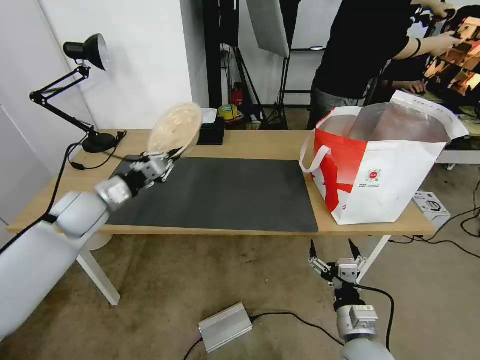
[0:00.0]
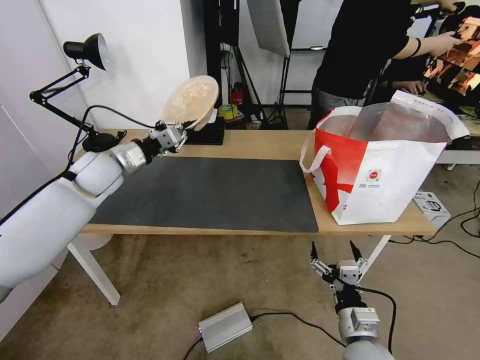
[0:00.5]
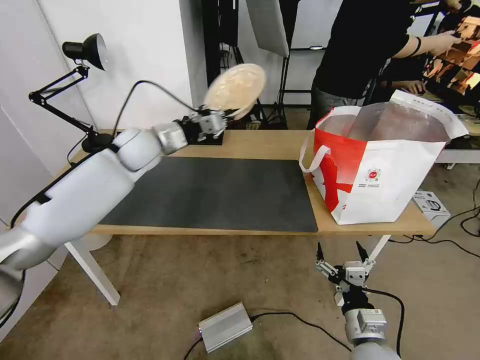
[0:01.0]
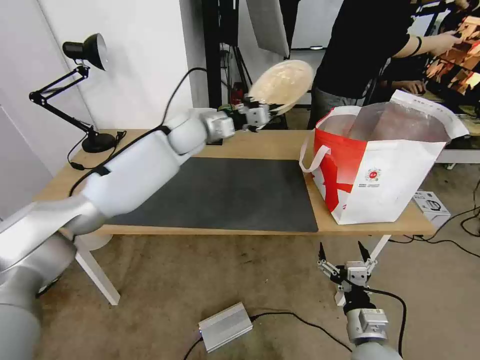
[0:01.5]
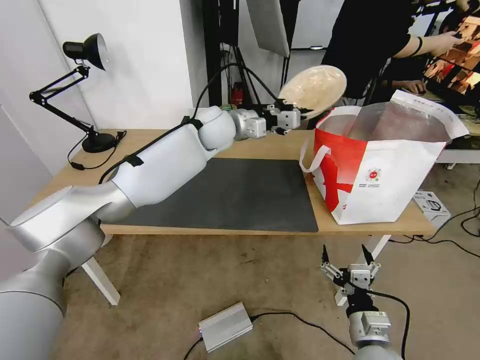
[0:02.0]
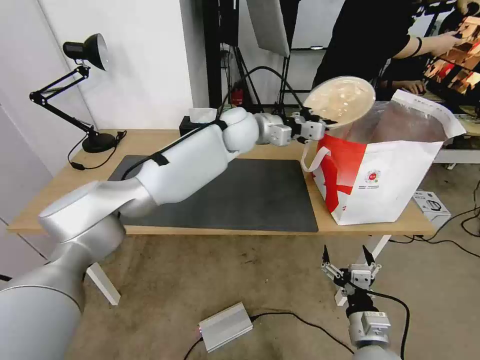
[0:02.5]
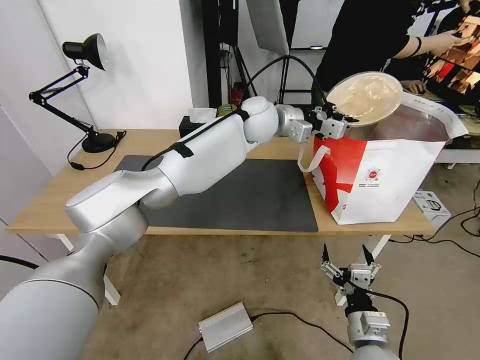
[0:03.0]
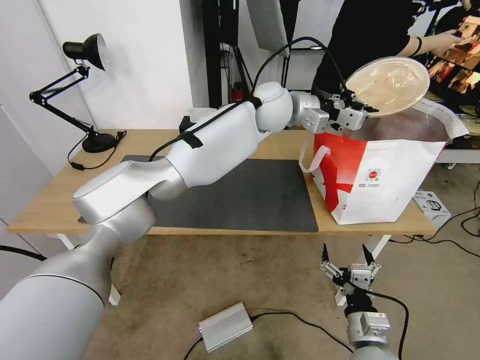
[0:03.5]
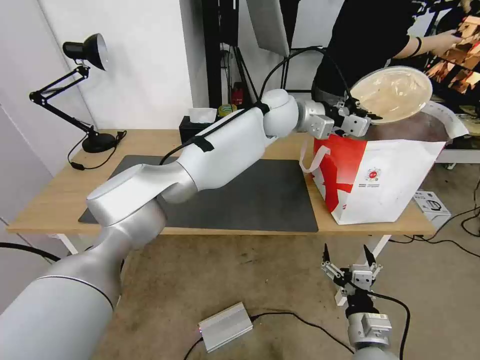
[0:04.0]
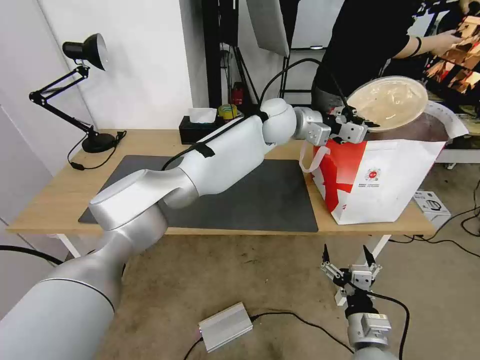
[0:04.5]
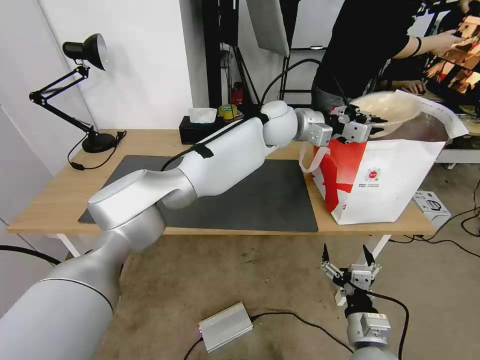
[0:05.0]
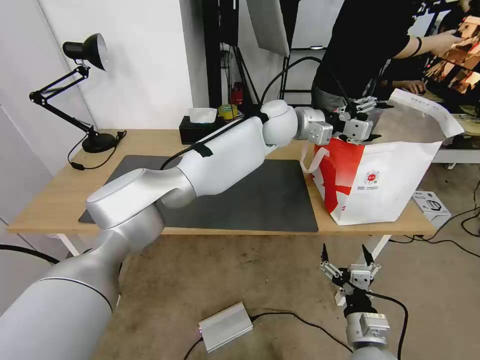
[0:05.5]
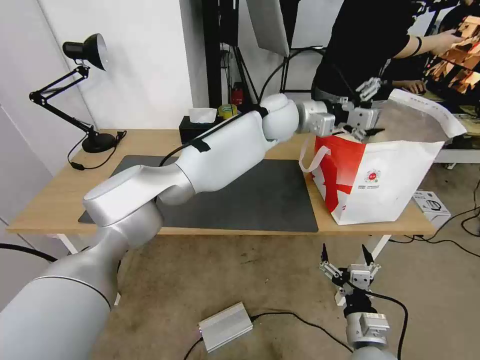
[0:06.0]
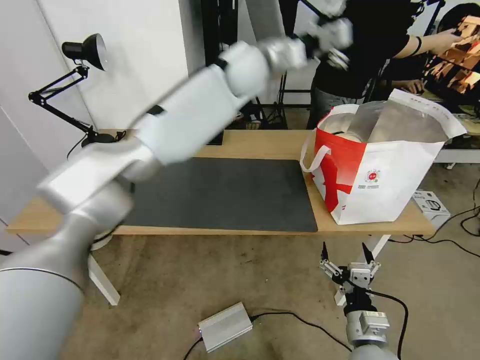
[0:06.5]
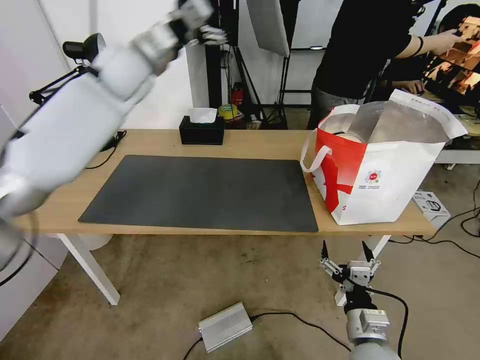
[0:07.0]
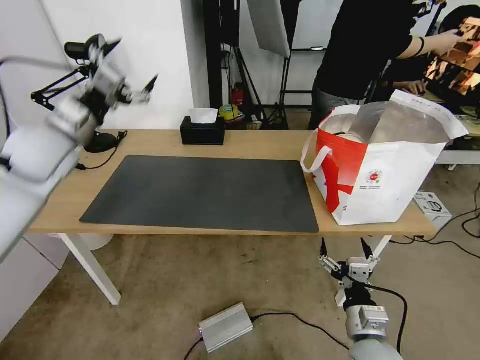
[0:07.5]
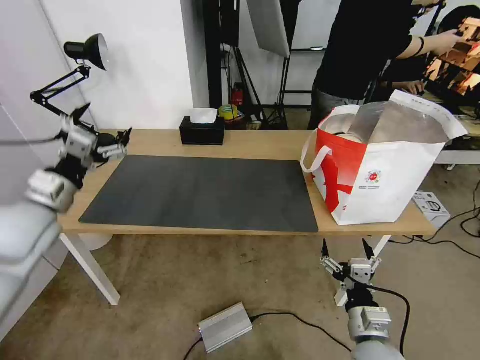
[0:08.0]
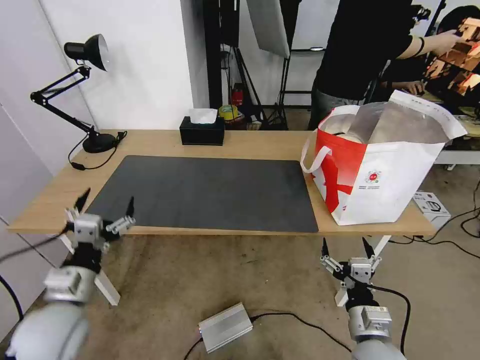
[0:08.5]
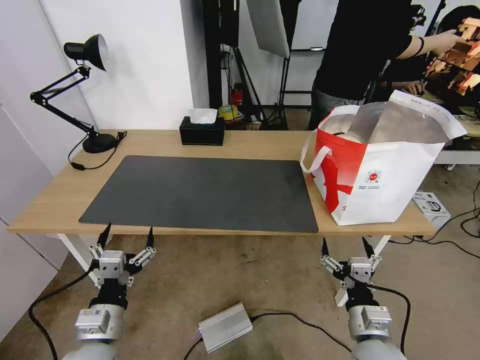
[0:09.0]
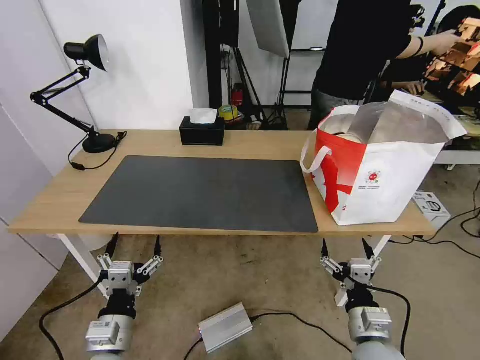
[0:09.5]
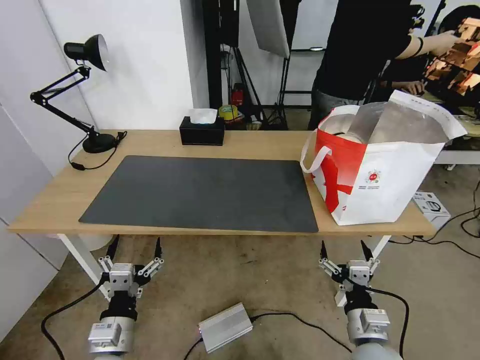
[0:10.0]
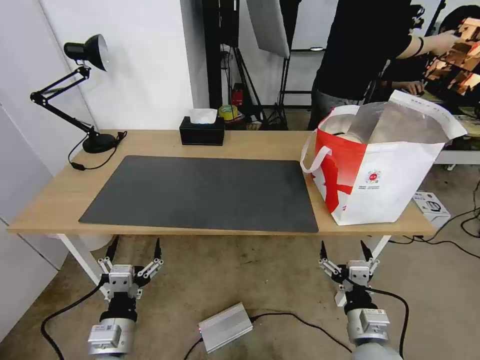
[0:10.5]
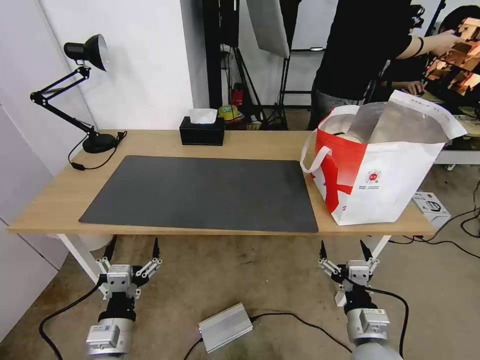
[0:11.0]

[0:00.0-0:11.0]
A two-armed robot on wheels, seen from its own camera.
Task of the whole recording: Pick up the trash from the table and place it into the takeout bag.
0:00.0 to 0:02.0: The left gripper heads to the right and forward, covering some 35 cm.
0:02.0 to 0:03.5: The left gripper travels to the right and upward by approximately 15 cm.
0:03.5 to 0:05.5: The left gripper opens up.
0:05.5 to 0:07.5: The left gripper moves to the left, approximately 40 cm.
0:07.5 to 0:09.0: The left gripper heads backward and downward, covering approximately 40 cm.
0:09.0 to 0:11.0: The grippers make only small movements.
